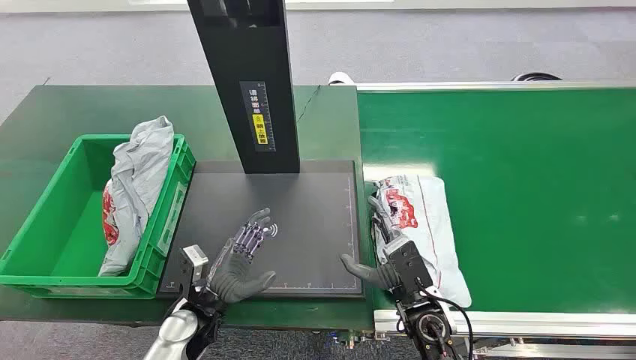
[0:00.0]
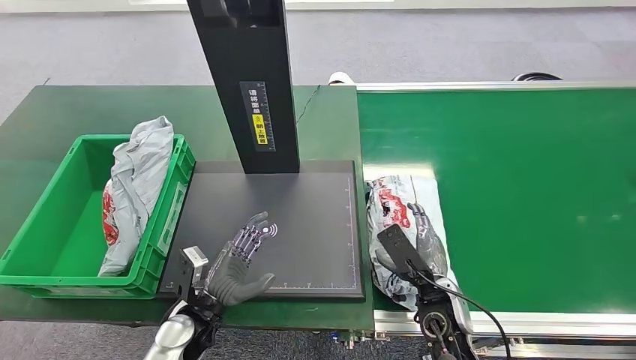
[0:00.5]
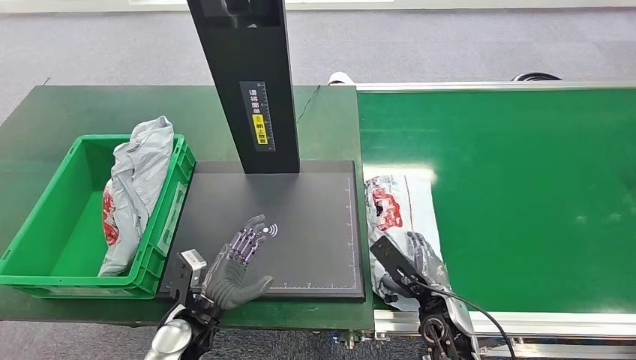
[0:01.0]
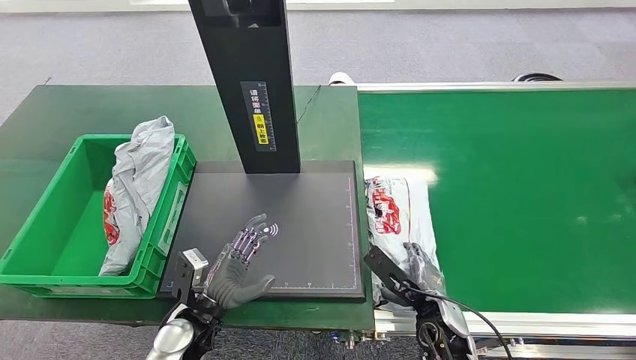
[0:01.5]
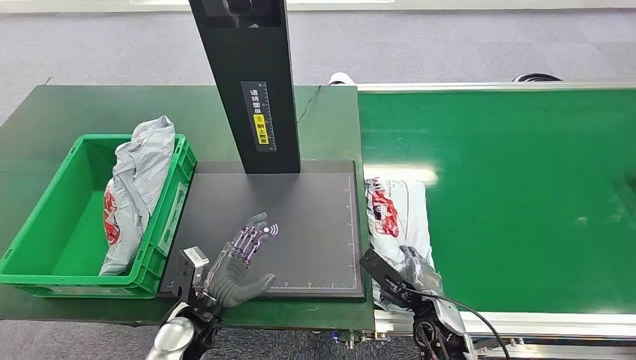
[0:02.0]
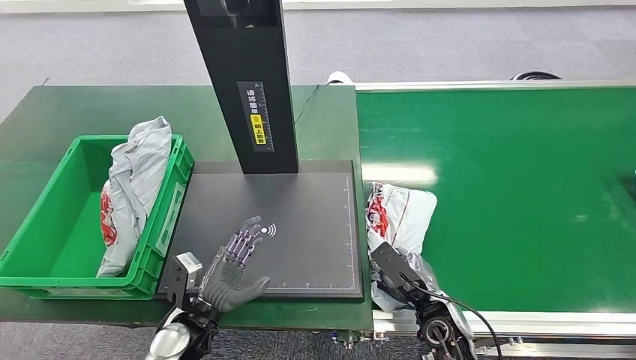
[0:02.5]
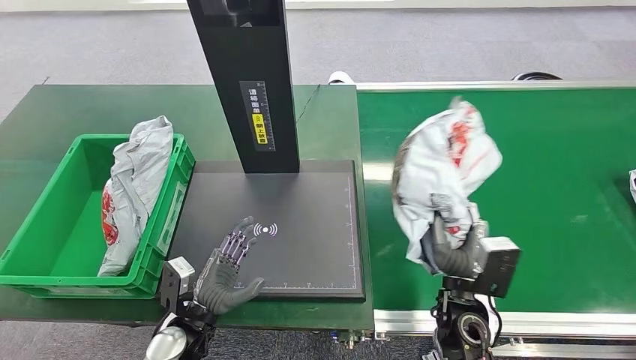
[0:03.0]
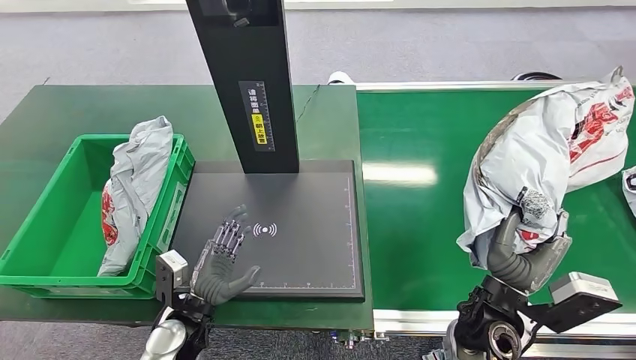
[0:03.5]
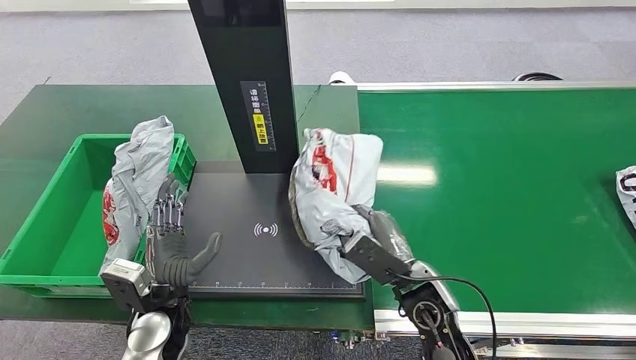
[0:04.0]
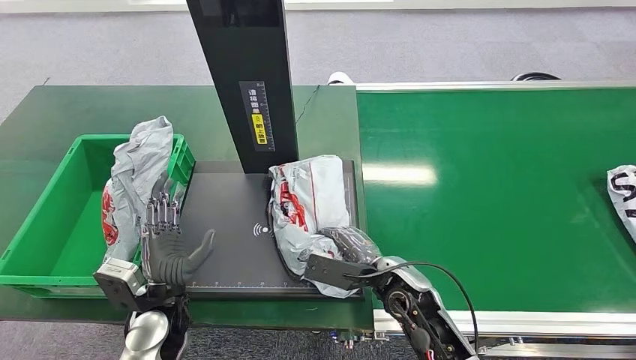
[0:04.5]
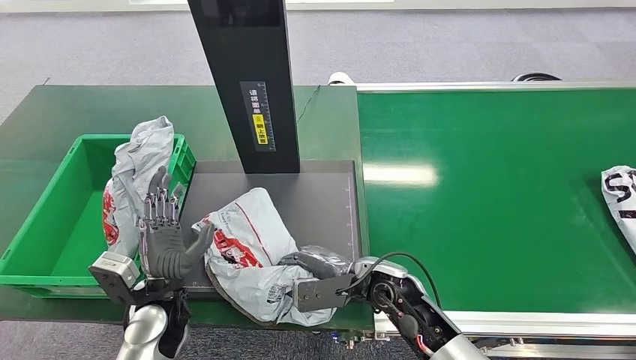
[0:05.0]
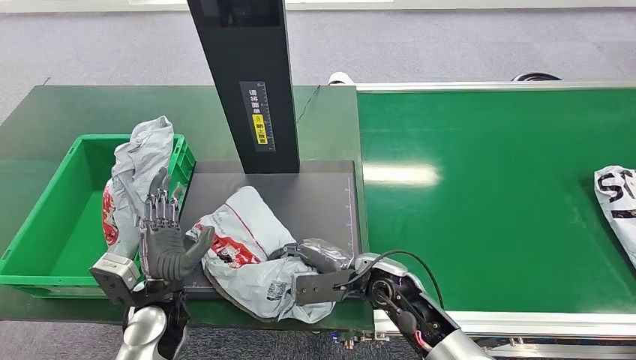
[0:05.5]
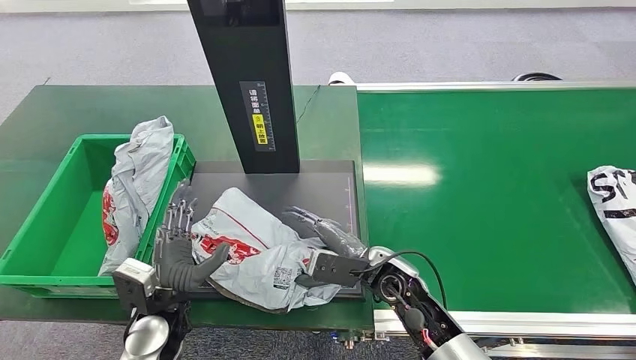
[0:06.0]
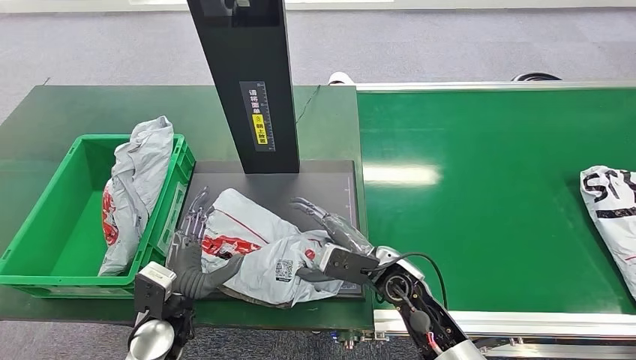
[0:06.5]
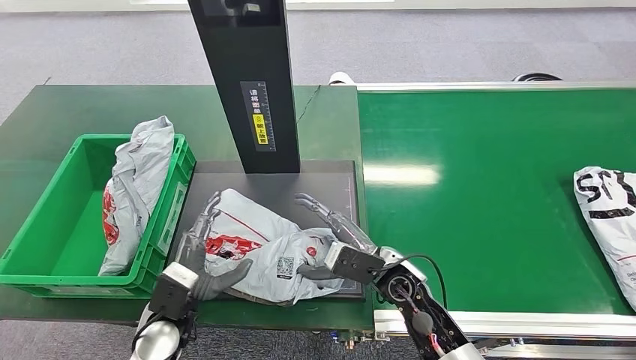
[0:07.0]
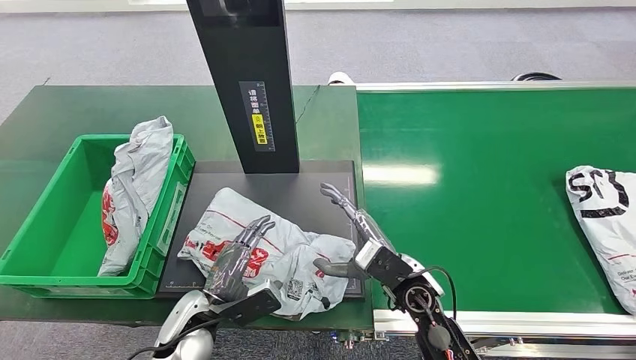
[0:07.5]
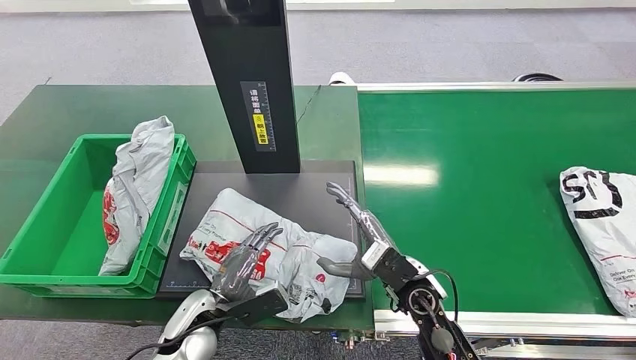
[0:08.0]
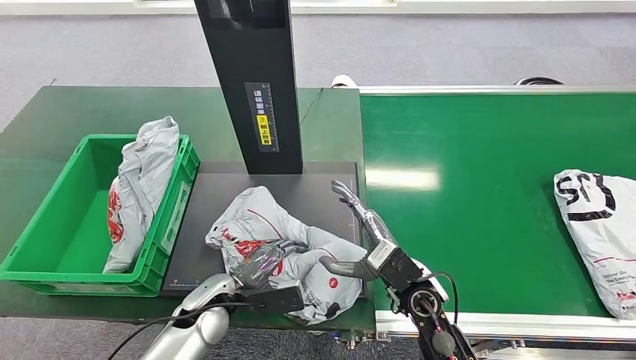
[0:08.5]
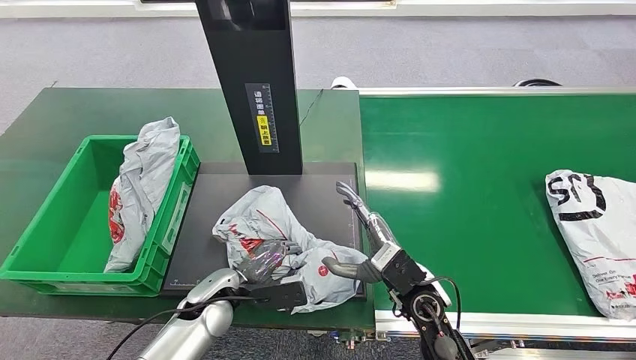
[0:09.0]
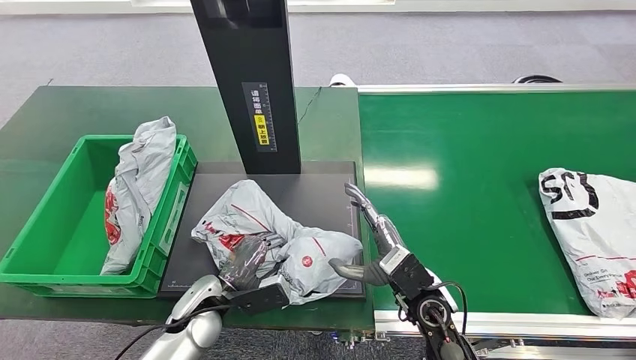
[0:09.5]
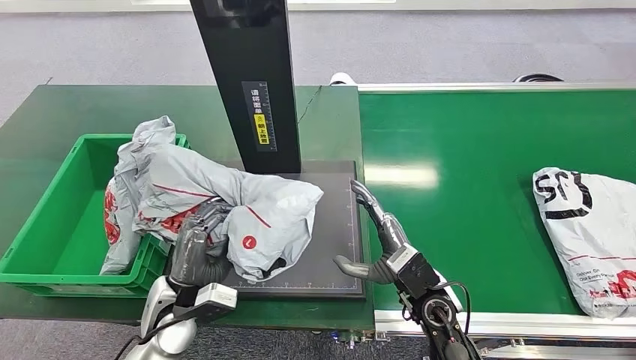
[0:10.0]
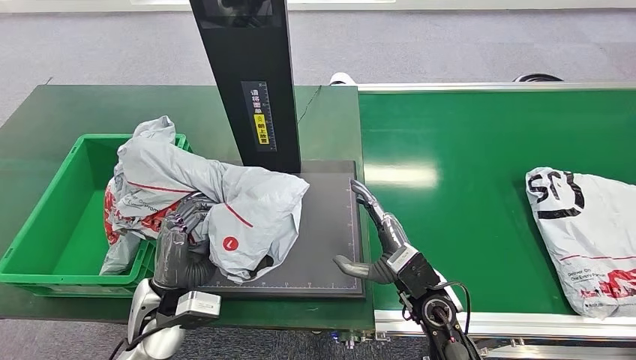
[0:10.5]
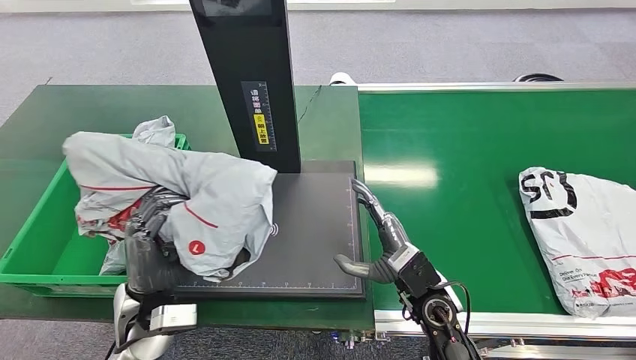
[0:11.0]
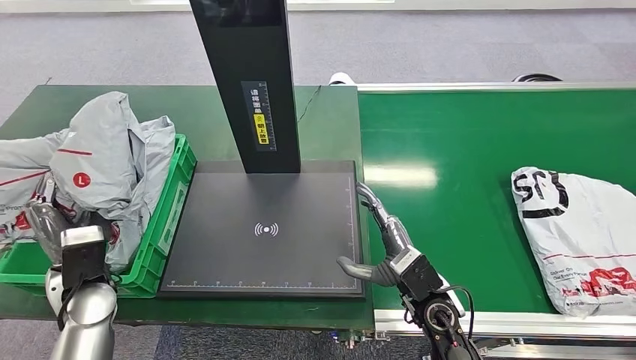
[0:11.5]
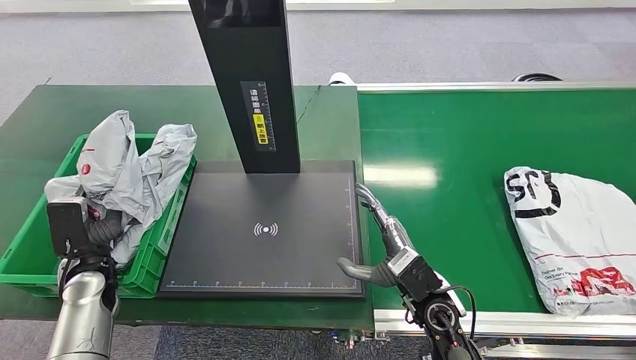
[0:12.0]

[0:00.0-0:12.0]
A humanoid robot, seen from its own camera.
Step, 0:00.0 to 0:03.0: Pick up the package from the conveyor belt.
Step, 0:03.5 to 0:07.5: Place the package onto the inbound machine.
Step, 0:08.0 to 0:10.0: Pick up the package from the inbound machine.
0:02.0 to 0:04.0: The left hand moves roughly 5 cm, while the right hand travels upward by approximately 10 cm.
0:04.0 to 0:06.0: The right hand moves roughly 5 cm.
0:06.0 to 0:08.0: The left hand moves approximately 5 cm.

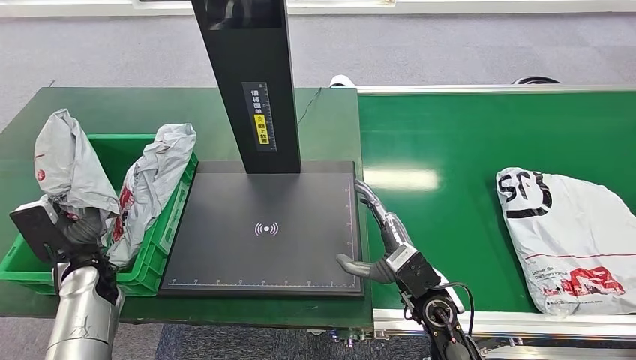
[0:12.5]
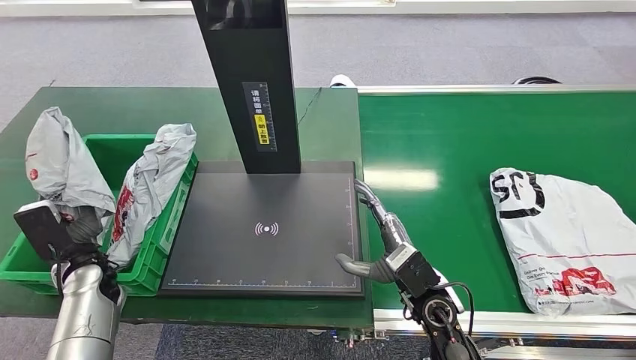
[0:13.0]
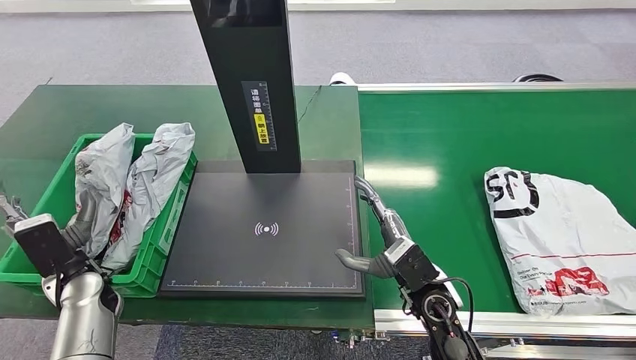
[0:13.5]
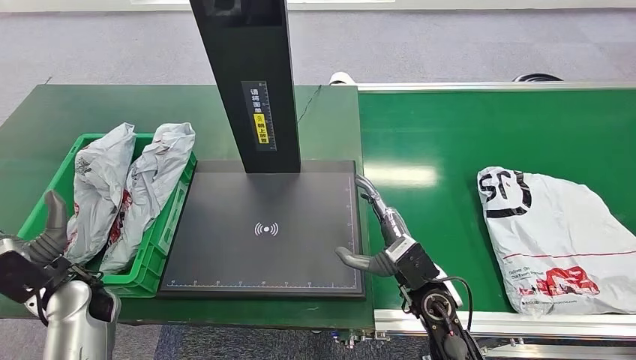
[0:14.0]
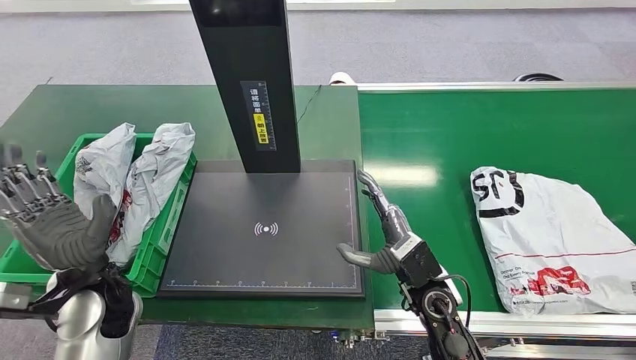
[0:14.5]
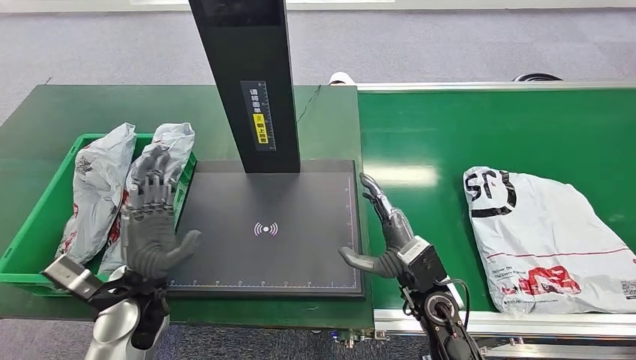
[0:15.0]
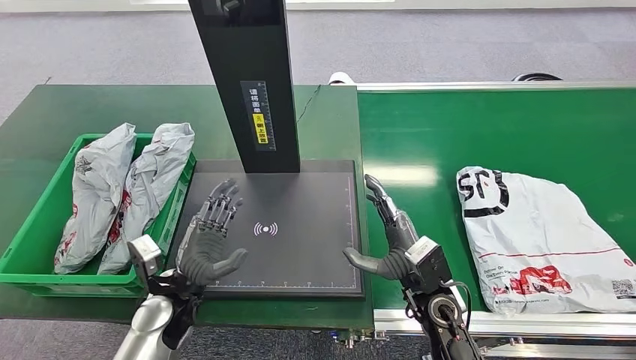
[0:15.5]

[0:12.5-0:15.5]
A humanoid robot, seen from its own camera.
Step, 0:12.5 to 0:15.5: Place the package into the parcel locker.
0:14.0 to 0:15.5: The left hand moves to the right, about 15 cm.

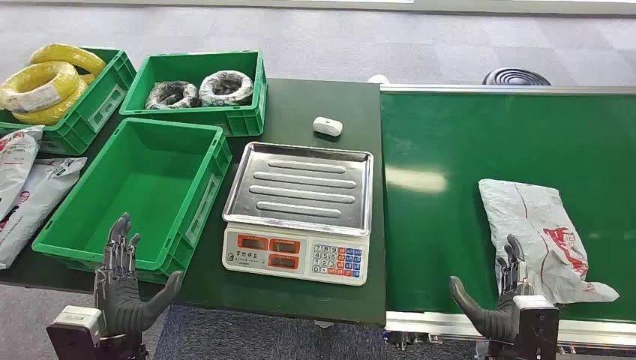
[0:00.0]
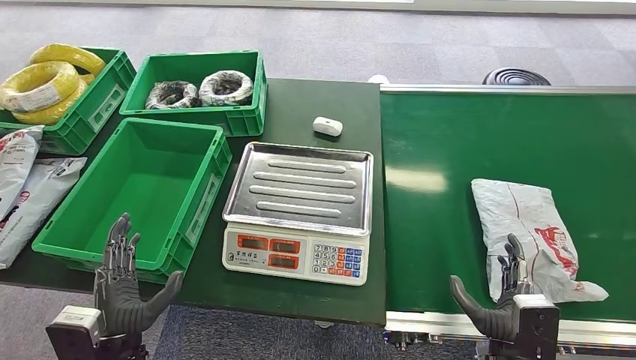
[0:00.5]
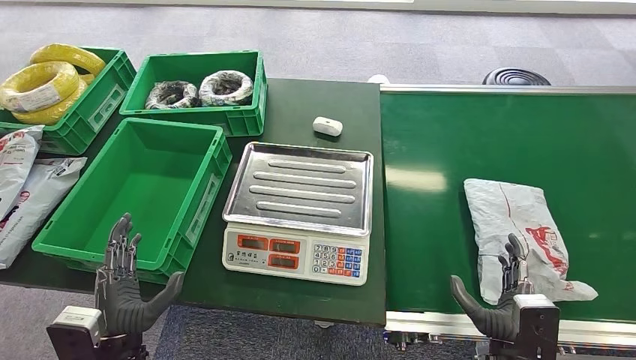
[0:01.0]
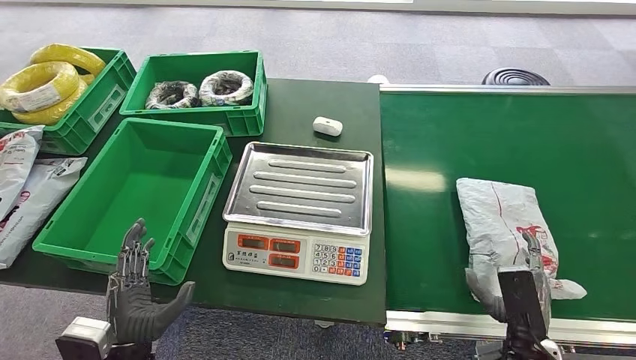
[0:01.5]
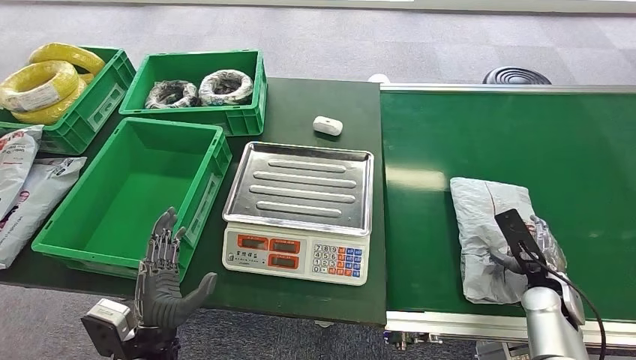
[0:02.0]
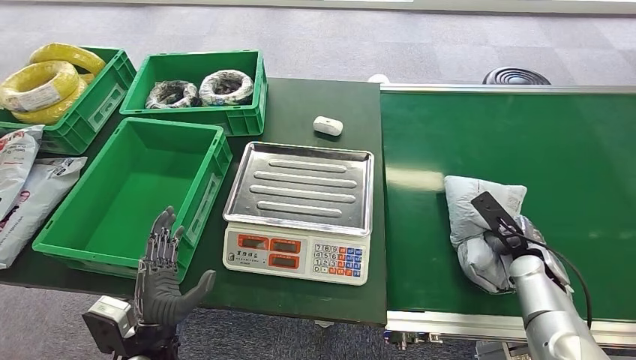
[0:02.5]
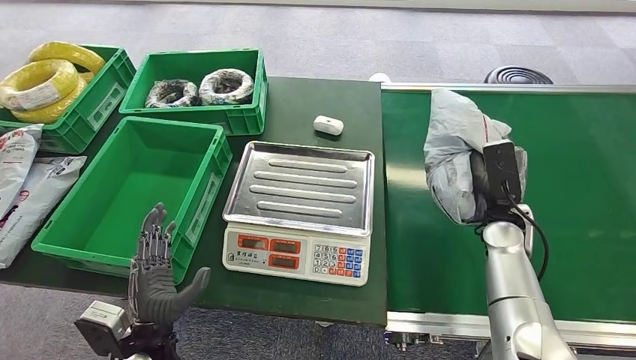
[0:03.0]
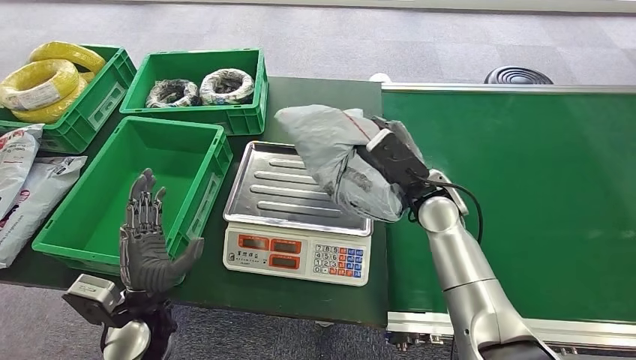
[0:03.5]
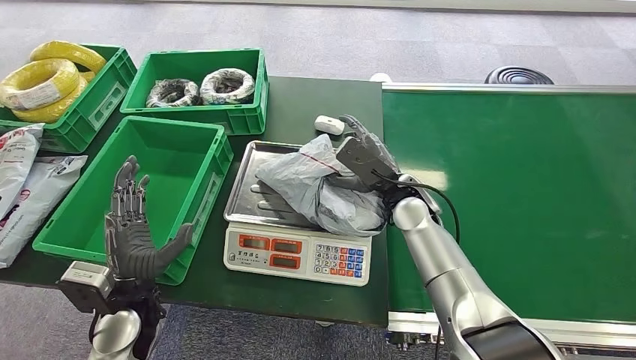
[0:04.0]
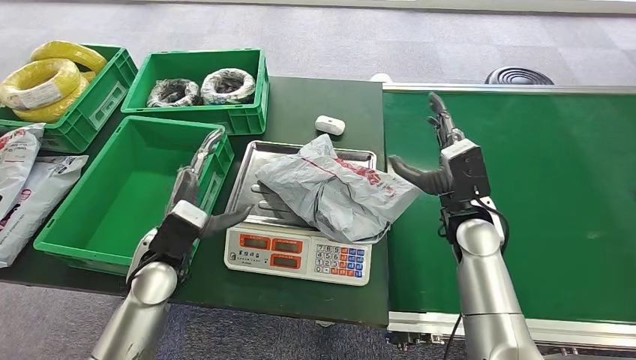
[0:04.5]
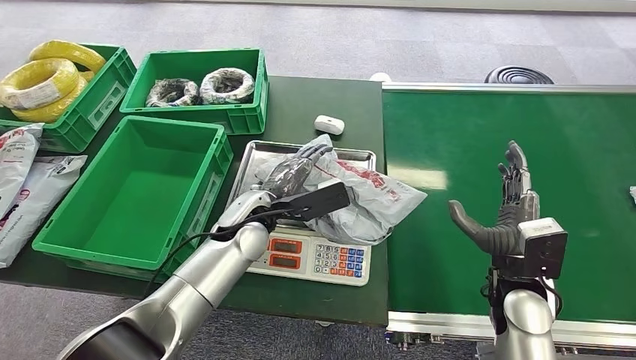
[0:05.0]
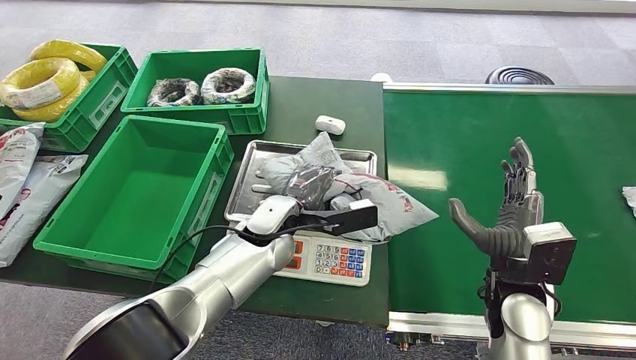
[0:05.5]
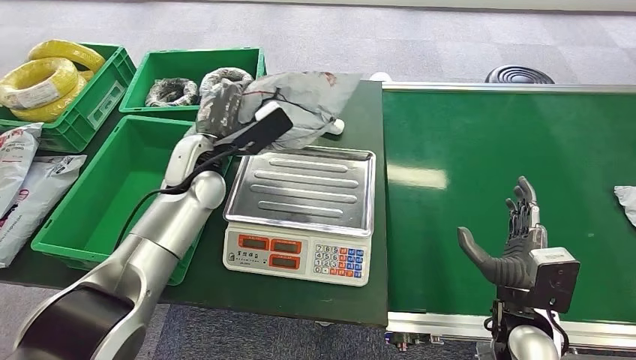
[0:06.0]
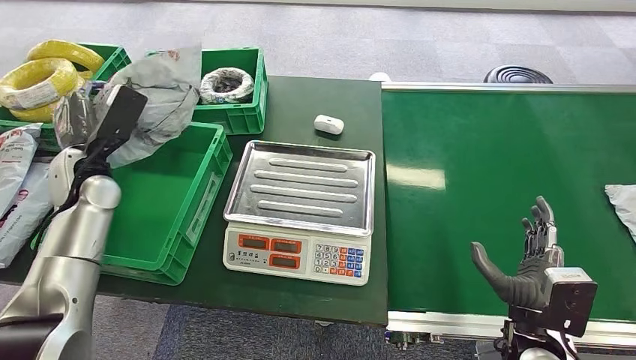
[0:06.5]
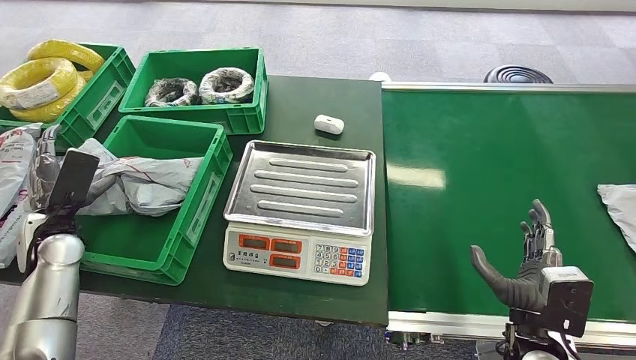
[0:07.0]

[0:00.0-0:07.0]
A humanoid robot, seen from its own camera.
Step, 0:00.0 to 0:03.0: Pick up the package from the conveyor belt.
Step, 0:03.5 to 0:04.0: Place the package onto the inbound machine.
Step, 0:05.0 to 0:05.5: Pick up the package from the inbound machine.
Step, 0:06.5 to 0:07.0: Place the package into the parcel locker.
